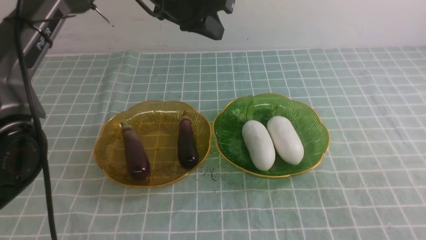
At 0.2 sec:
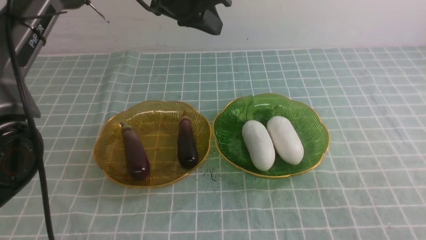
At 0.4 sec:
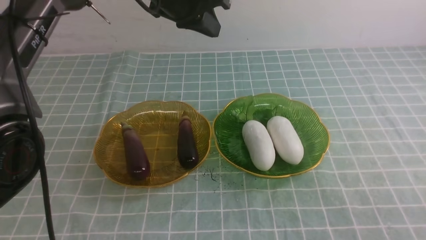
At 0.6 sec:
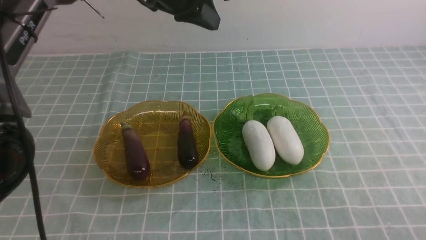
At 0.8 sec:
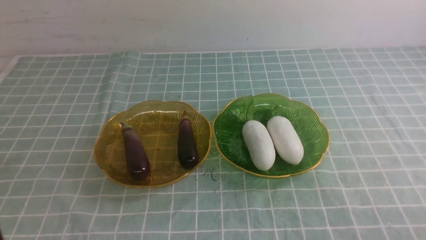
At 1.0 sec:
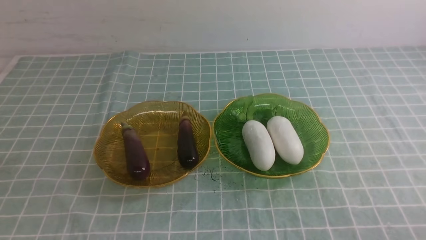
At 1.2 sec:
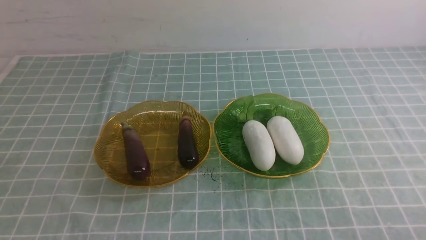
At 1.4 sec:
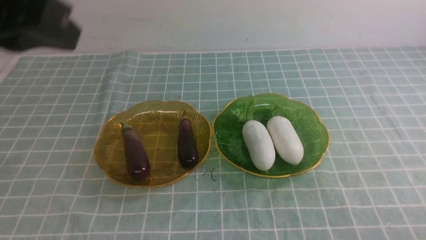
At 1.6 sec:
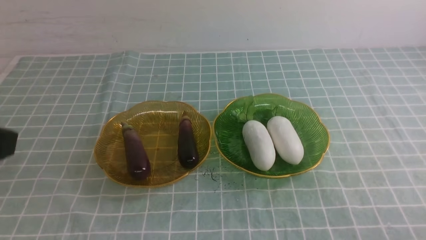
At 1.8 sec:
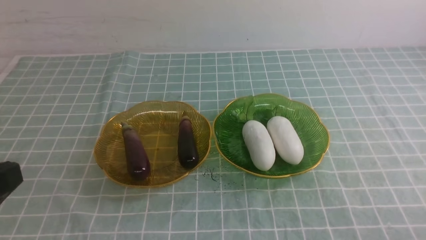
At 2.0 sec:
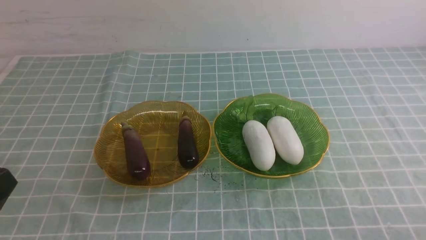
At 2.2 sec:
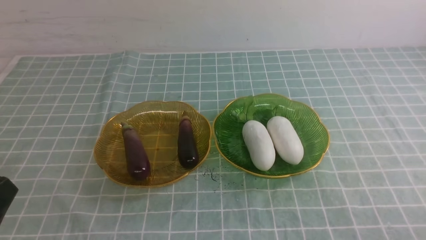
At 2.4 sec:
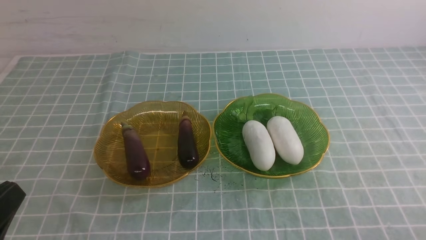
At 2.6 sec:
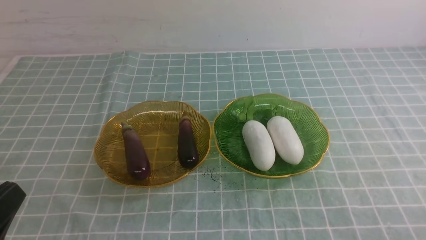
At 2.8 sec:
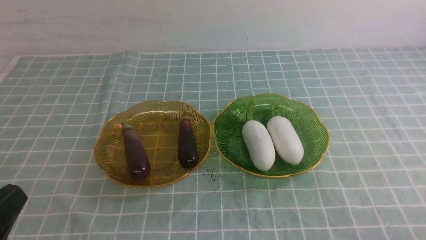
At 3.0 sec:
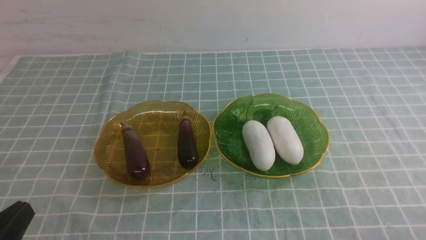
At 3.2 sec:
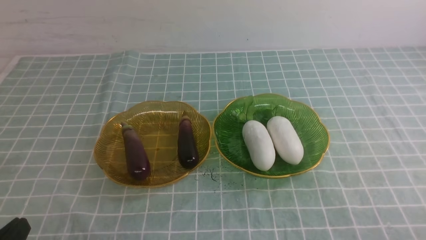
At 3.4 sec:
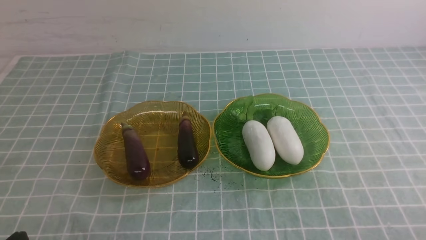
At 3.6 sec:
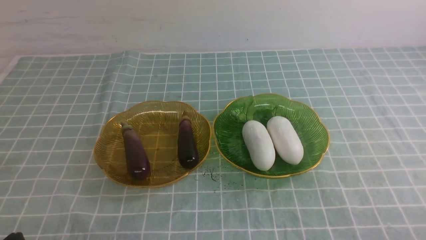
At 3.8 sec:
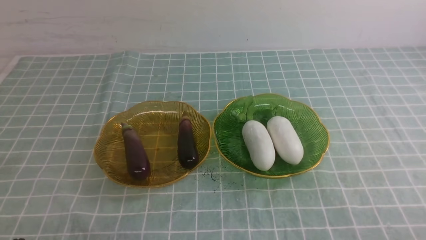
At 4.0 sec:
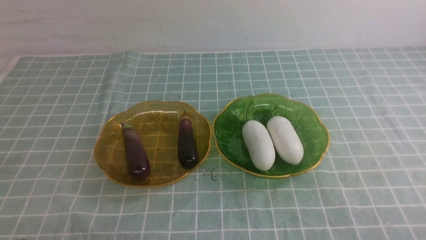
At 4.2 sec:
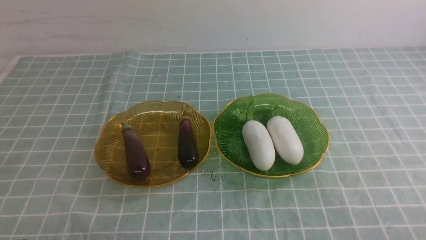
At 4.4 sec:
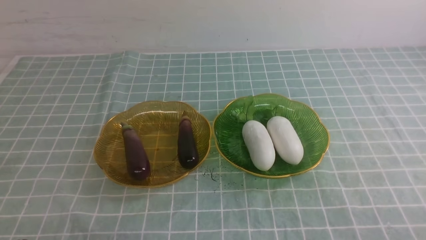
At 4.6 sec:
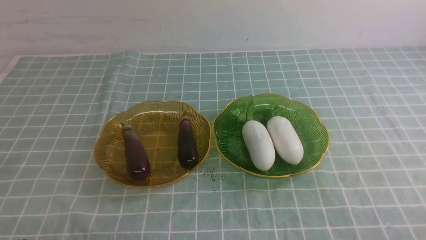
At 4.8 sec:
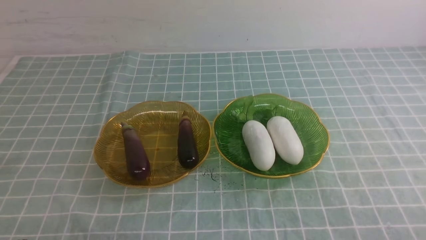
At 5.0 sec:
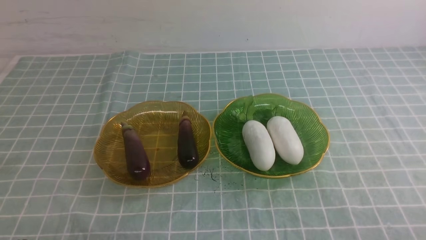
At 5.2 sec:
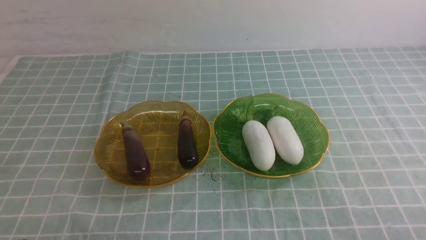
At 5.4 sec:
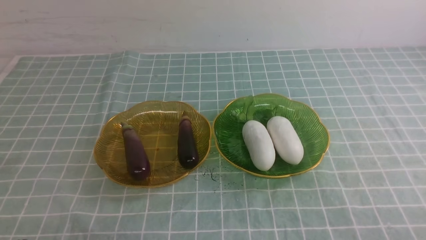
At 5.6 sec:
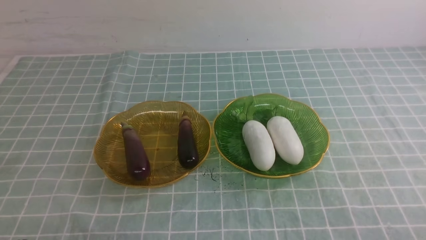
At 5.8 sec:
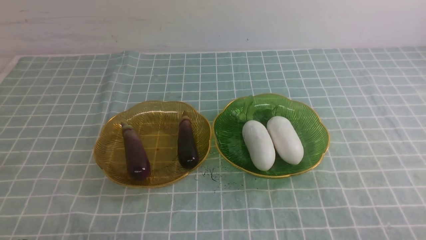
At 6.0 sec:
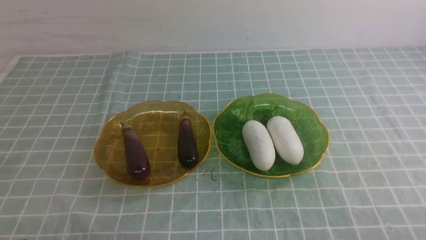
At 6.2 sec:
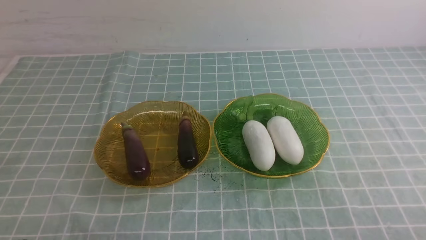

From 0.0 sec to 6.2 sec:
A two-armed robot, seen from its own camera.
From 0.0 sec to 1.6 sec: The right gripper moves downward, some 10 cm, while the left gripper moves backward and to the left, about 35 cm.
From 1.6 sec to 3.2 sec: The left gripper moves downward, roughly 20 cm.
From 4.6 sec to 6.2 sec: Neither gripper changes place.
